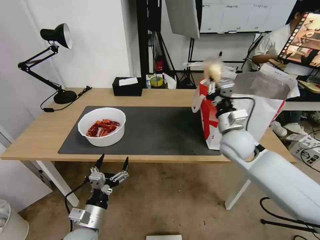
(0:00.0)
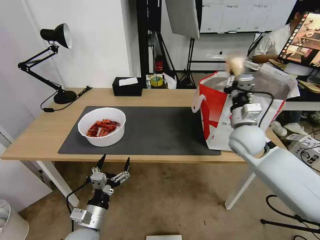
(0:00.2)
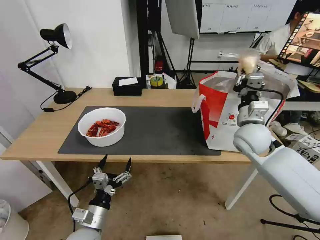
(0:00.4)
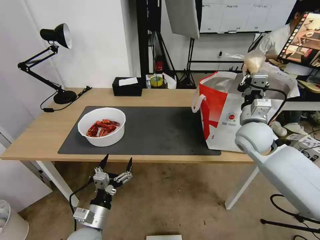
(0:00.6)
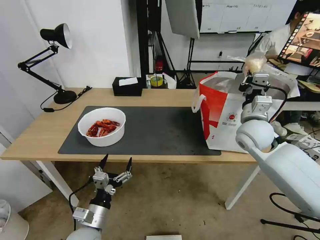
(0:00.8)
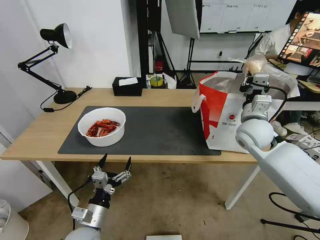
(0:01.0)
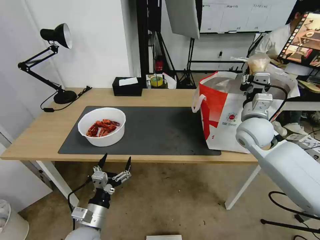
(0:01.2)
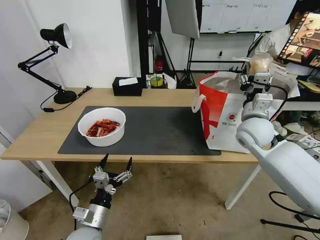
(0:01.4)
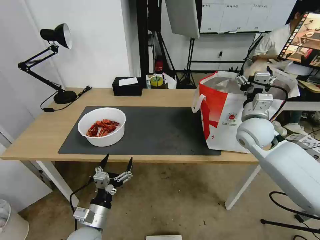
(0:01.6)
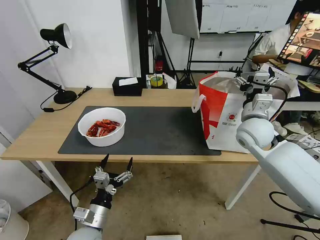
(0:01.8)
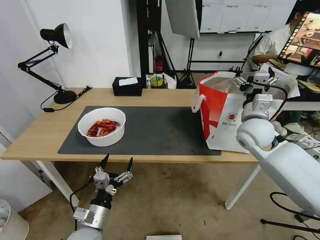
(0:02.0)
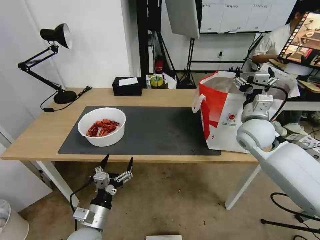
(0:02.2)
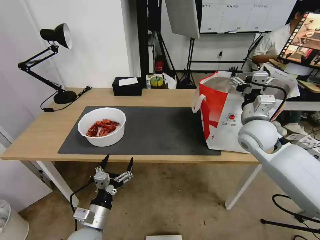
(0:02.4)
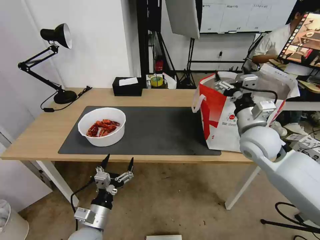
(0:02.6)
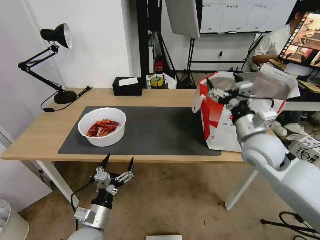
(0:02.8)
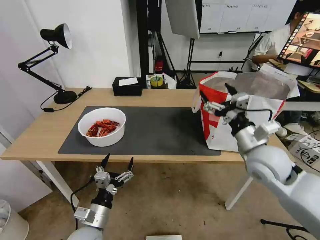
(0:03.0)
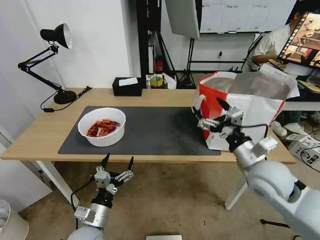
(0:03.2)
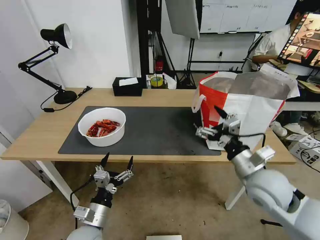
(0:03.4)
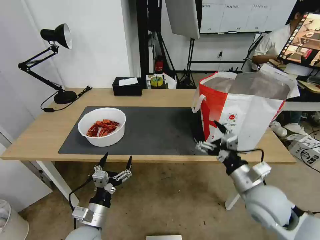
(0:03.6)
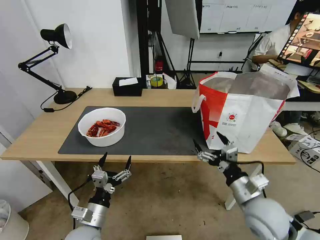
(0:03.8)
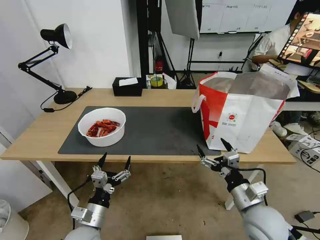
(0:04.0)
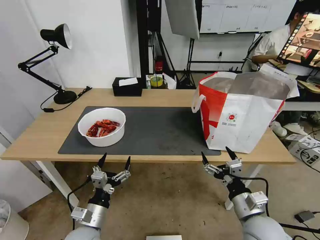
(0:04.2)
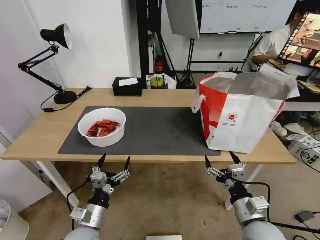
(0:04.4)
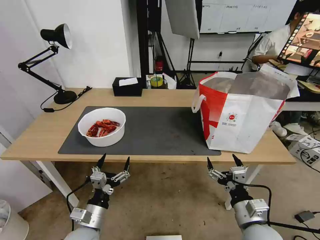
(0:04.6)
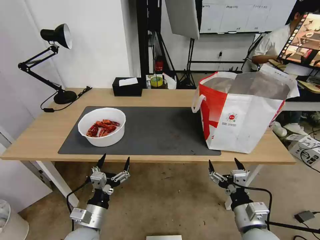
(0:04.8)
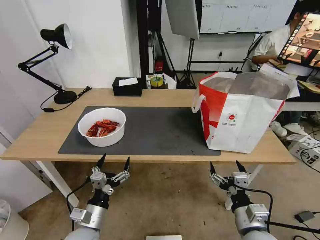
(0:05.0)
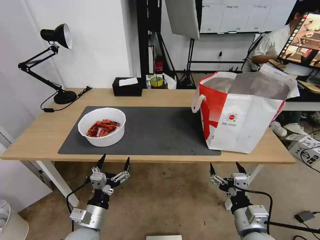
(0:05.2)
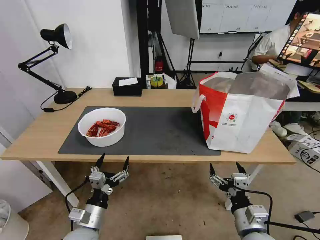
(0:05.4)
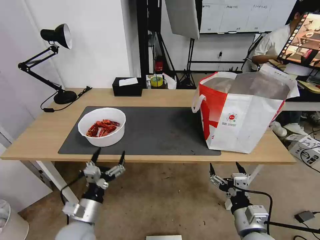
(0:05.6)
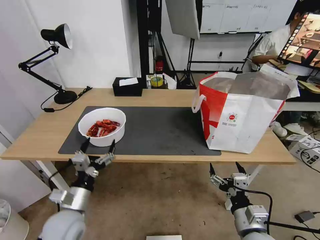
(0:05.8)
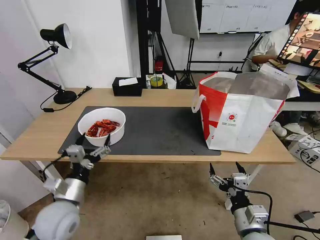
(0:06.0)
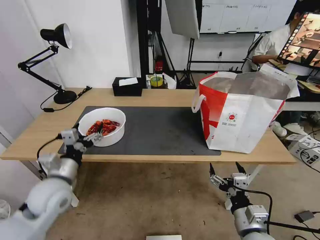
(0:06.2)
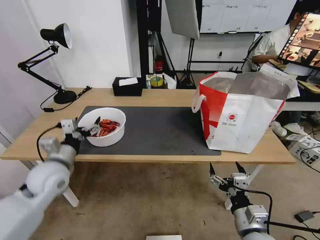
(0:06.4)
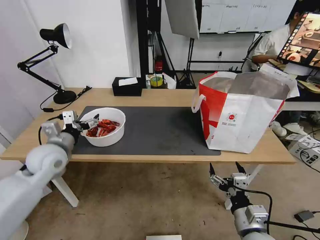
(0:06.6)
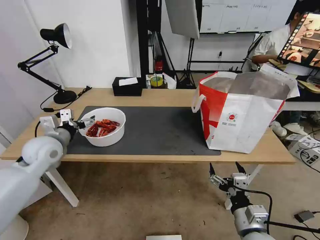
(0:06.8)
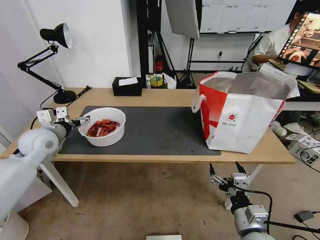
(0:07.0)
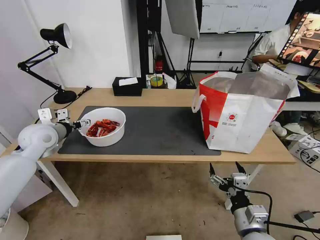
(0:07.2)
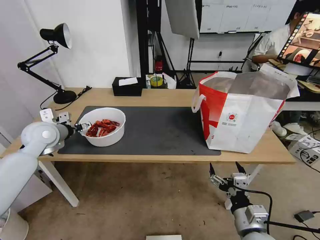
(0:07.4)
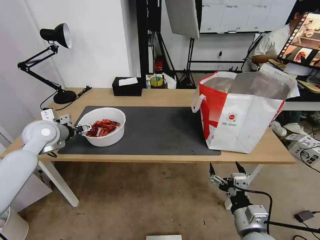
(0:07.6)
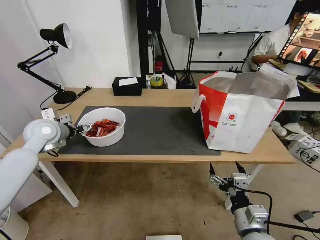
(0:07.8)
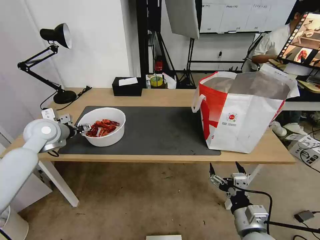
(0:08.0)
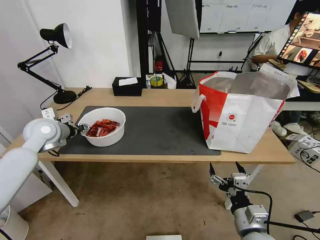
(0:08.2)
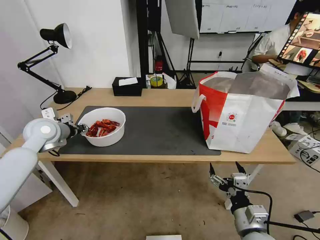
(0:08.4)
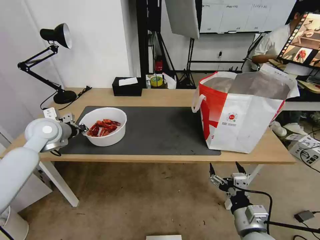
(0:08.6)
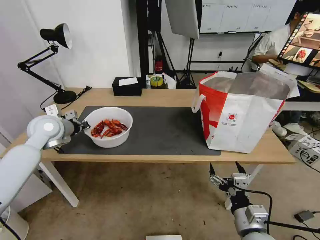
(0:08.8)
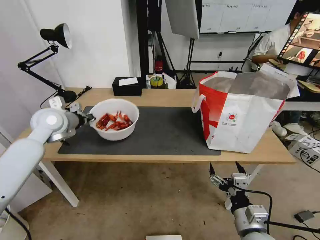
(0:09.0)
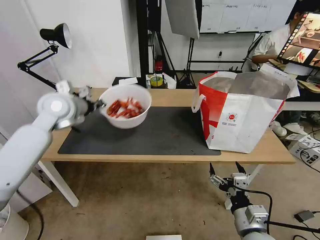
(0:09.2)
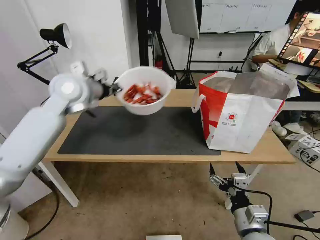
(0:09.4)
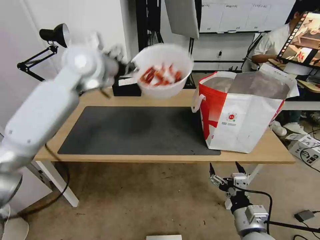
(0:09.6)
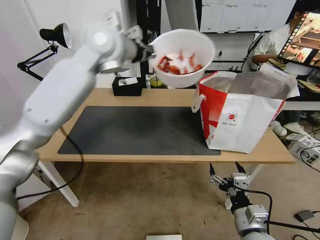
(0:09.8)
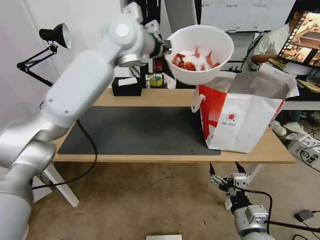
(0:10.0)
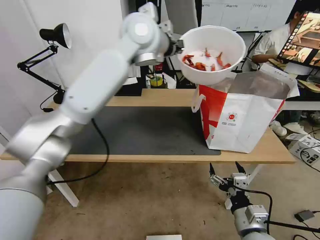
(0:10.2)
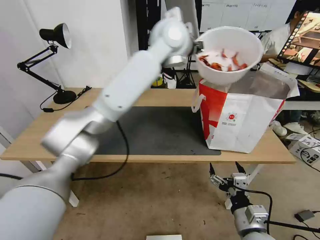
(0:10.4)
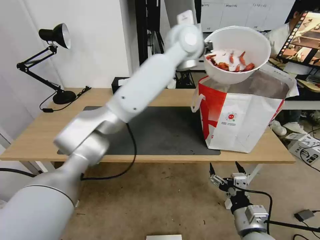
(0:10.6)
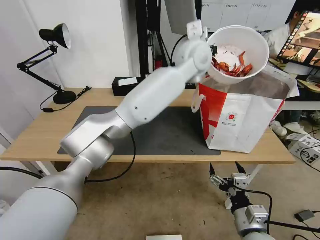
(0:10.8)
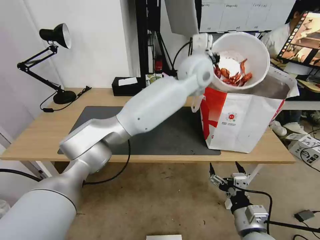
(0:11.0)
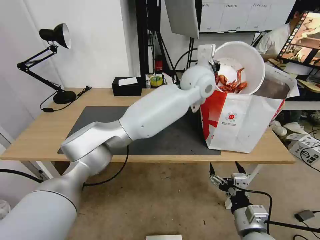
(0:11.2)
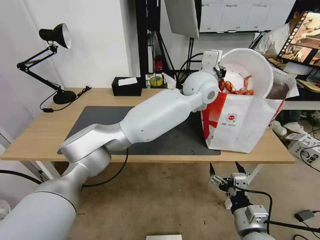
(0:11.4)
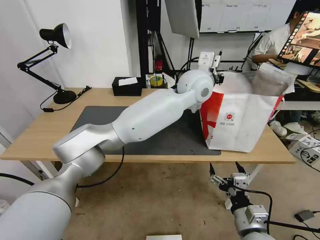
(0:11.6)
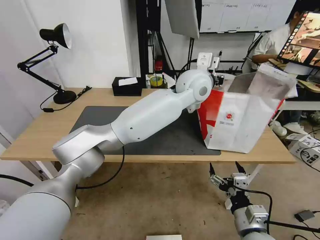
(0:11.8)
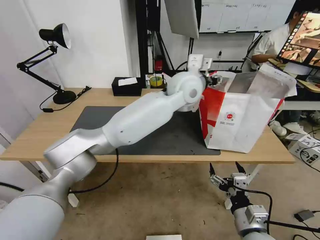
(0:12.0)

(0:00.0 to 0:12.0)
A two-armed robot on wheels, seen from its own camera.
Task of the whole recording: Pick up the trash from the table and place it into the takeout bag.
0:00.0 - 0:01.6: The right gripper moves to the right, about 5 cm, and opens.
0:01.6 - 0:03.0: The right gripper shifts some 10 cm backward.
0:03.0 - 0:04.4: The right gripper is displaced backward and downward by some 20 cm.
0:04.4 - 0:06.0: The left gripper moves upward, to the left and forward, about 10 cm.
0:06.0 - 0:07.6: The left gripper goes approximately 25 cm forward, upward and to the left.
0:07.6 - 0:09.0: The left gripper ends up approximately 5 cm from where it was, and closes.
0:09.0 - 0:10.4: The left gripper is displaced to the right and upward by some 40 cm.
0:10.4 - 0:12.0: The left gripper is displaced downward and to the right by some 10 cm, and opens.

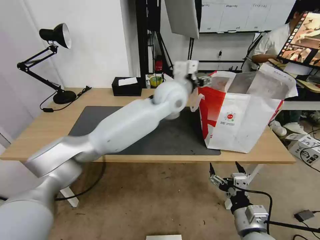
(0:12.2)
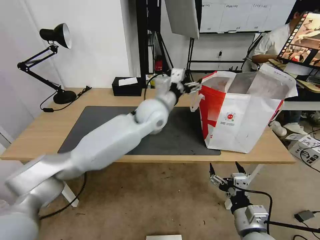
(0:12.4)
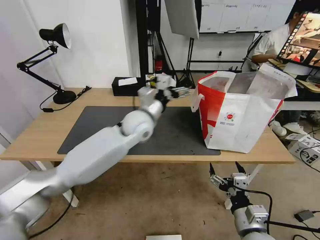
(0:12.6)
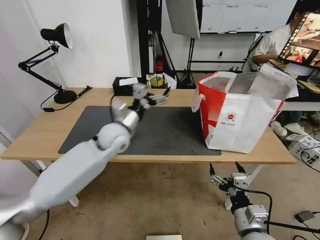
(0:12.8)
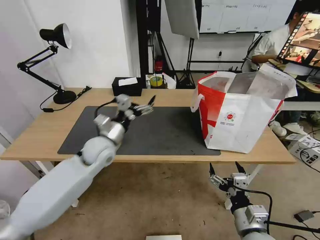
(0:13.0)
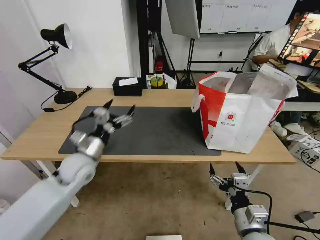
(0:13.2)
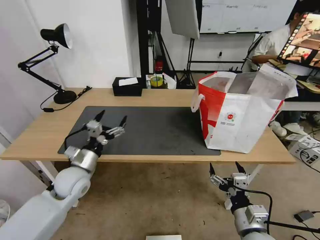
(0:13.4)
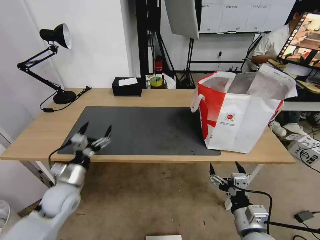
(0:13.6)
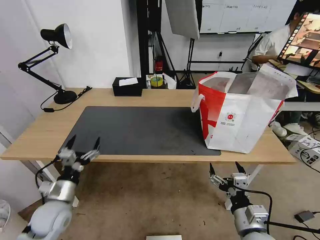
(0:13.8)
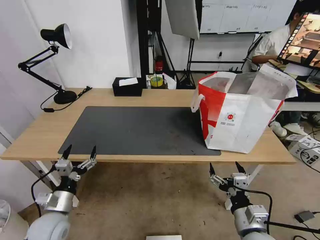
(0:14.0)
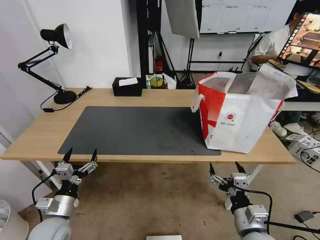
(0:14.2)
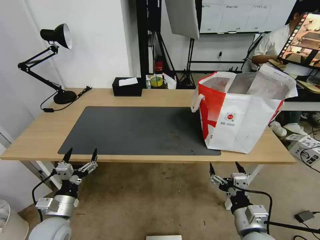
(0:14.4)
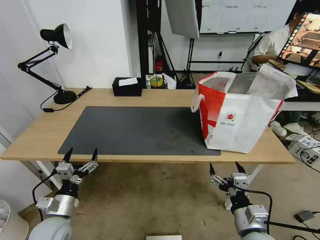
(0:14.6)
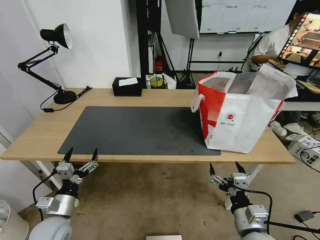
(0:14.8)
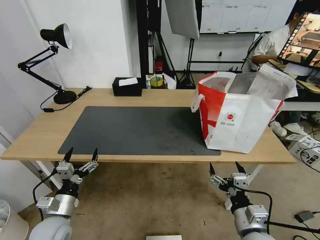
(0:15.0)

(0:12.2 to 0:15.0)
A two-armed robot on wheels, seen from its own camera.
Task of the whole recording: Pick up the trash from the table and place it into the takeout bag.
0:12.2 - 0:13.6: The left gripper shifts about 40 cm to the left, downward and backward.
0:13.6 - 0:15.0: The left gripper heads backward, covering approximately 10 cm.

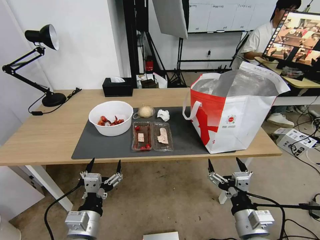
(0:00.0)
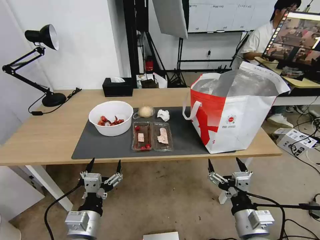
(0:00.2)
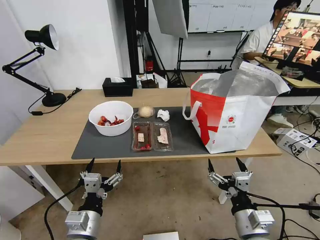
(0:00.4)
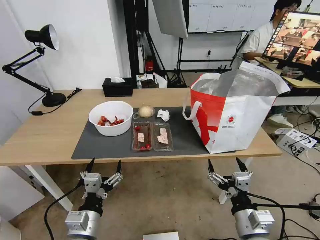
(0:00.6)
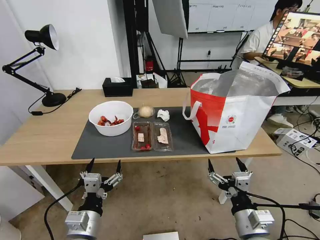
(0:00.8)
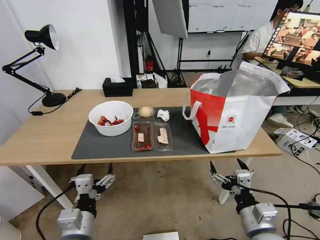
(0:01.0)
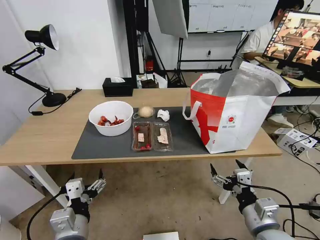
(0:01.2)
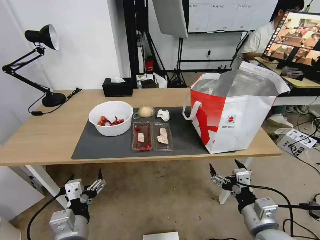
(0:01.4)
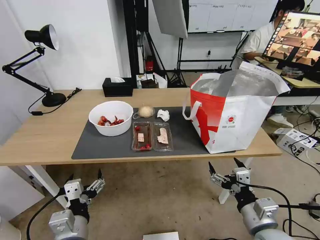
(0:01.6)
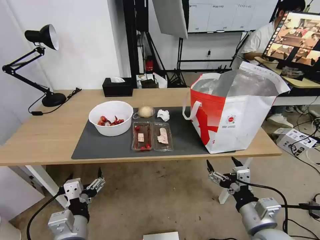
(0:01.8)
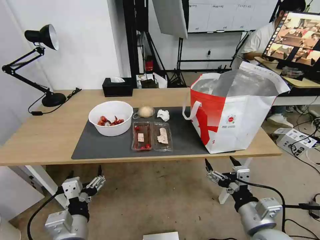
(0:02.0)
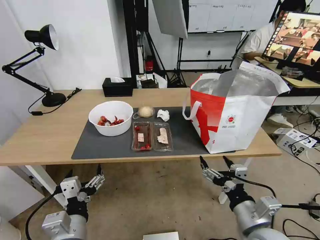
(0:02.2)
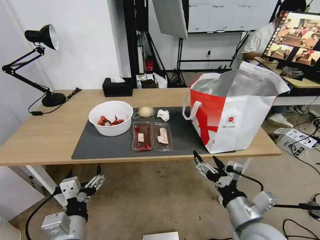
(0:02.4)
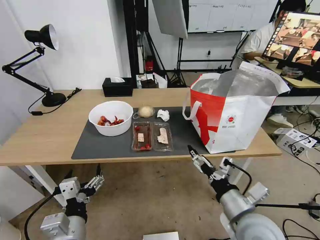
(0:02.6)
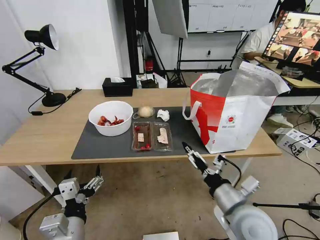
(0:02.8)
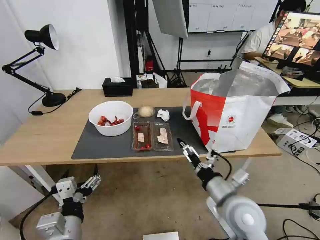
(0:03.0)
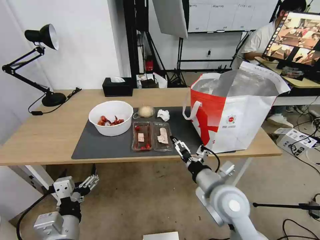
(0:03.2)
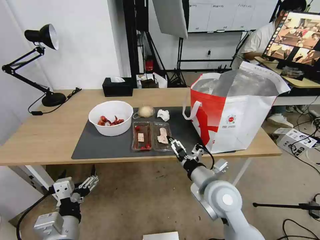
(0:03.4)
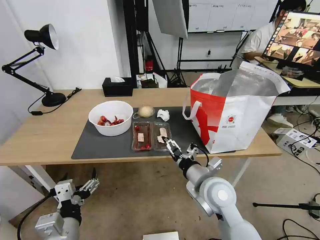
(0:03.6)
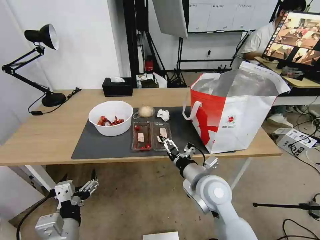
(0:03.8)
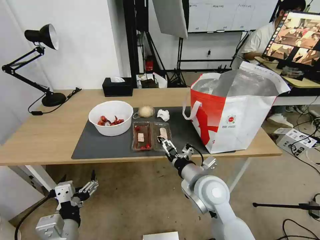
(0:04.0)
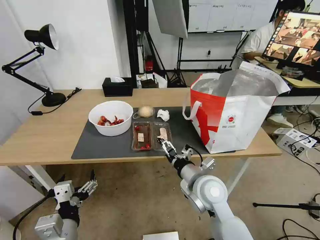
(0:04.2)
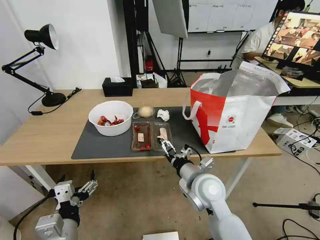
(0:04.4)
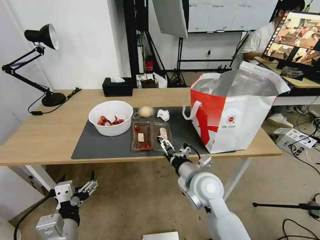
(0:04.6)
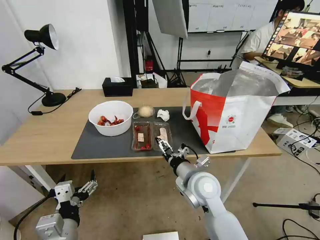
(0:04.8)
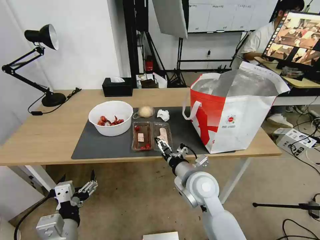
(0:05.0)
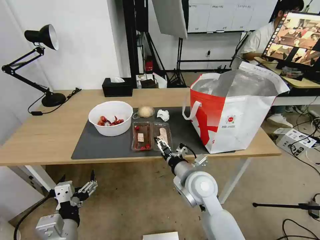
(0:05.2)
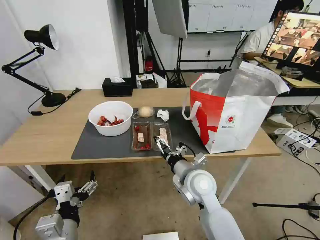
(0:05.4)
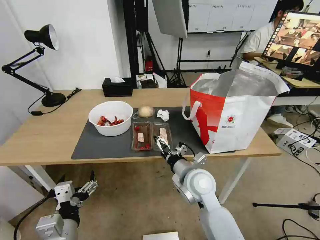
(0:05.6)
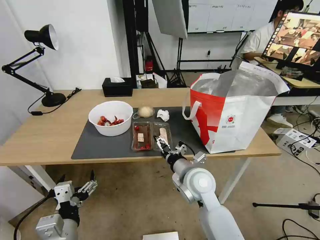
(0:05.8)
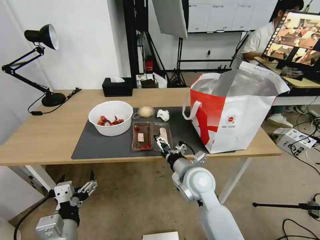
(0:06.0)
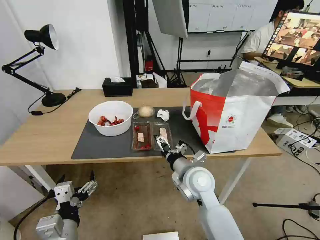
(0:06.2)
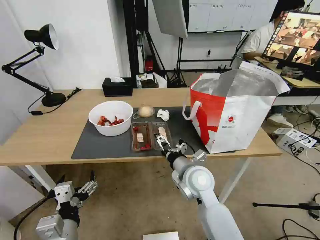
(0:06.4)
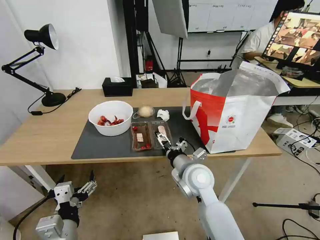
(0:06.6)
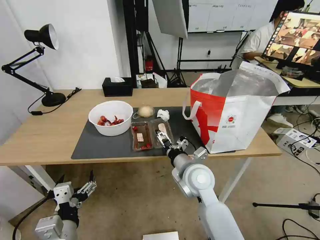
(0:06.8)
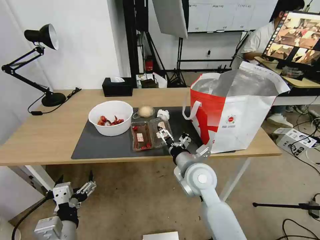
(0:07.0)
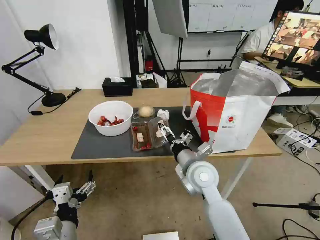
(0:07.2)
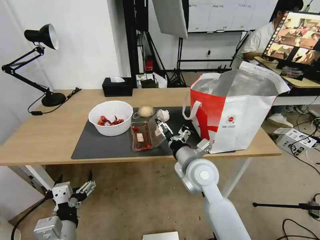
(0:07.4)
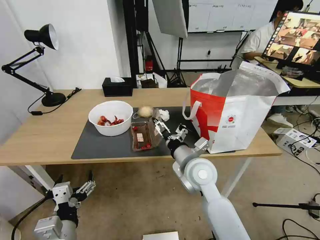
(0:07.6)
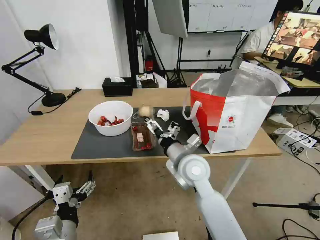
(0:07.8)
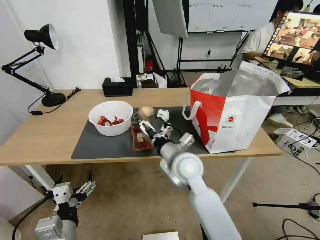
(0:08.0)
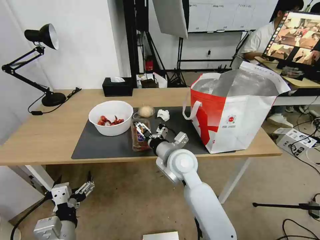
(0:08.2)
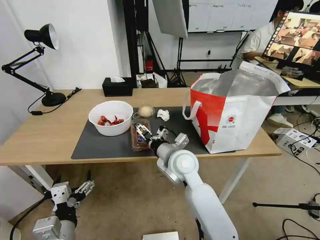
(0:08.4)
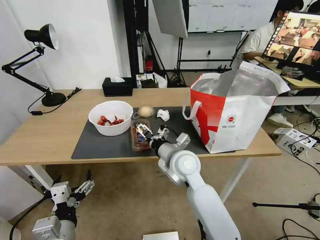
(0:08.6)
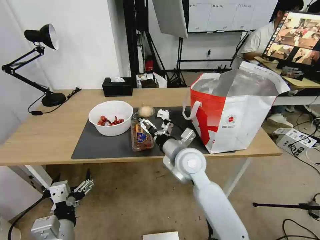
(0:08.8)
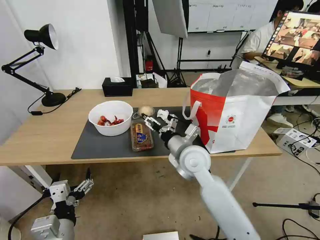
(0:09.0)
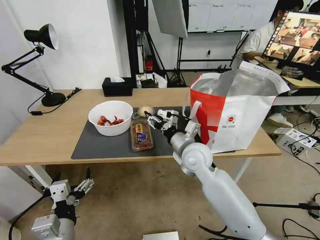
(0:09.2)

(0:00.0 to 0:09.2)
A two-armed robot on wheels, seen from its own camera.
Task of the whole recording: Pick up the trash from the table and place it into the takeout bag.
0:01.6 - 0:03.0: The right gripper goes about 10 cm forward and to the left.
0:03.0 - 0:04.6: The right gripper is displaced forward and to the left by about 10 cm.
0:04.6 - 0:07.6: The grippers make only small movements.
0:07.6 - 0:09.2: The right gripper is displaced forward by some 5 cm, and closes.
